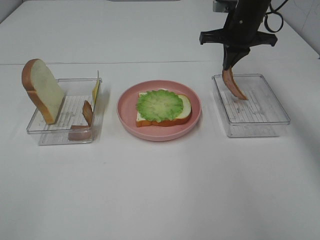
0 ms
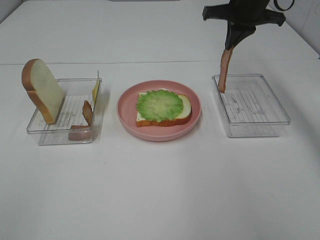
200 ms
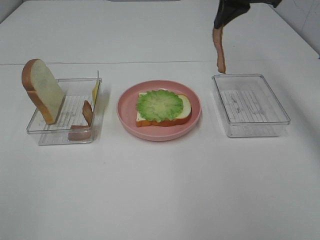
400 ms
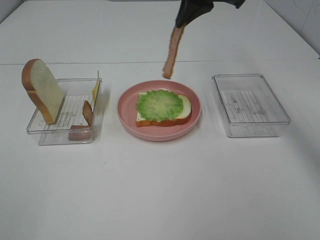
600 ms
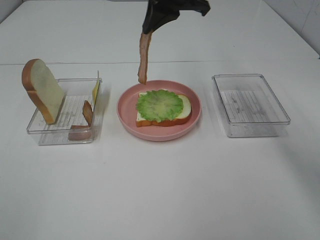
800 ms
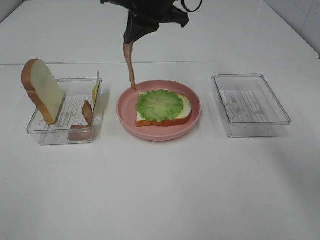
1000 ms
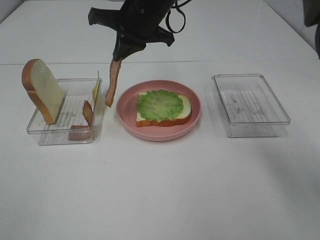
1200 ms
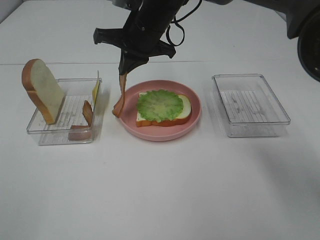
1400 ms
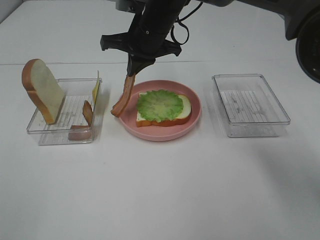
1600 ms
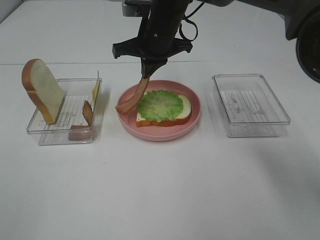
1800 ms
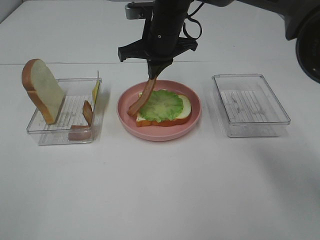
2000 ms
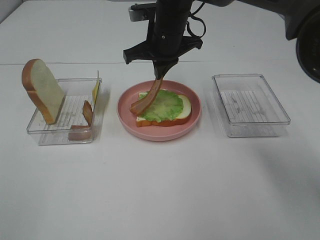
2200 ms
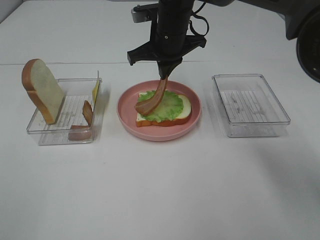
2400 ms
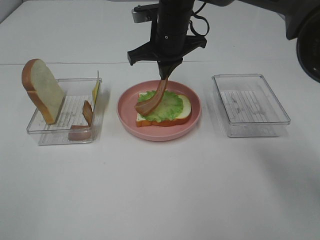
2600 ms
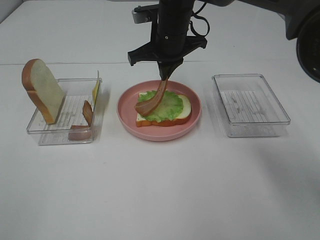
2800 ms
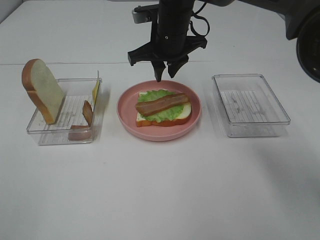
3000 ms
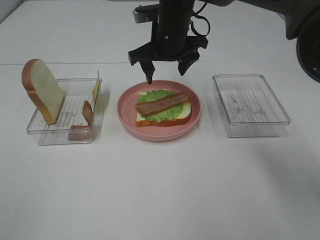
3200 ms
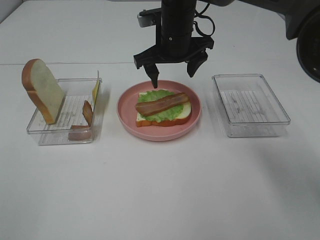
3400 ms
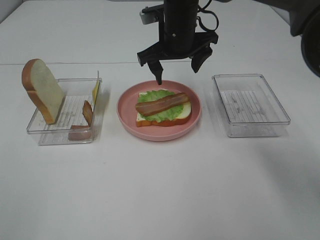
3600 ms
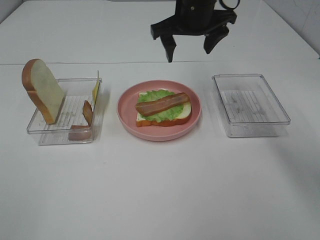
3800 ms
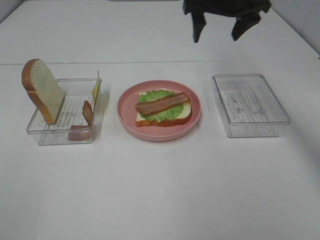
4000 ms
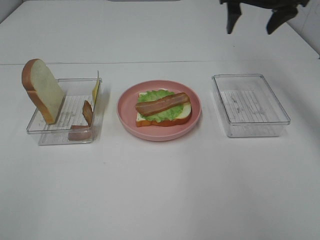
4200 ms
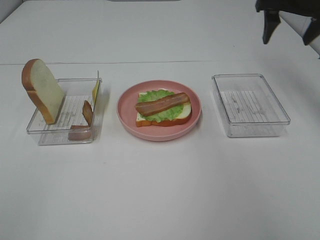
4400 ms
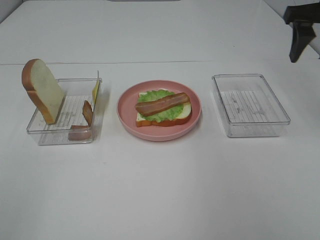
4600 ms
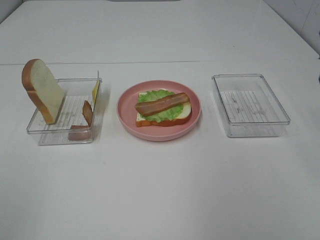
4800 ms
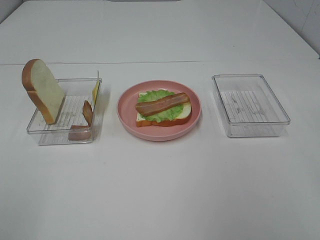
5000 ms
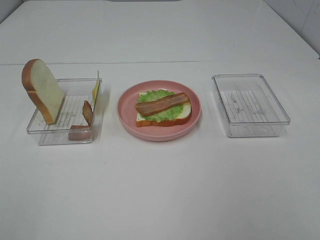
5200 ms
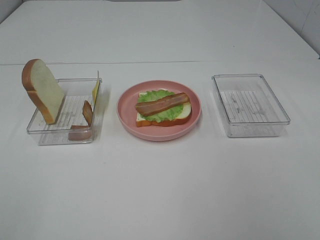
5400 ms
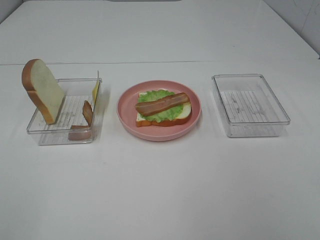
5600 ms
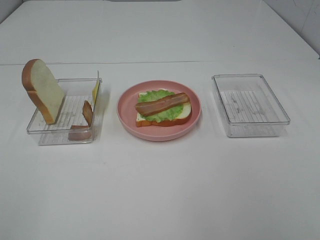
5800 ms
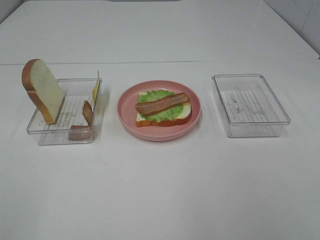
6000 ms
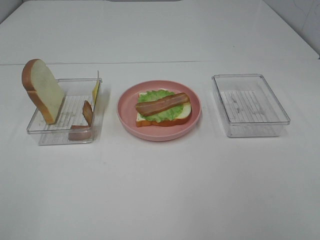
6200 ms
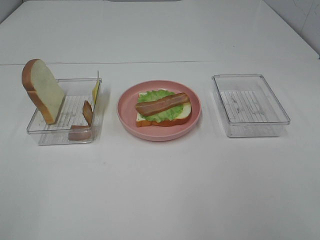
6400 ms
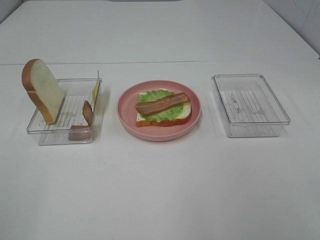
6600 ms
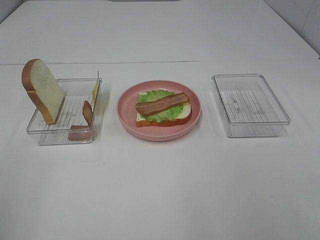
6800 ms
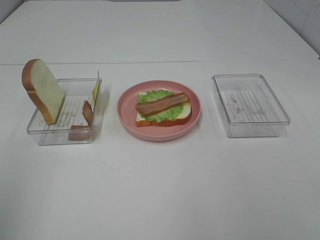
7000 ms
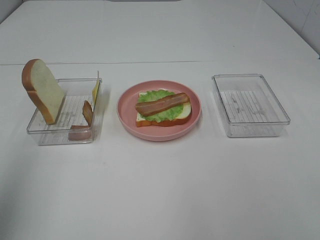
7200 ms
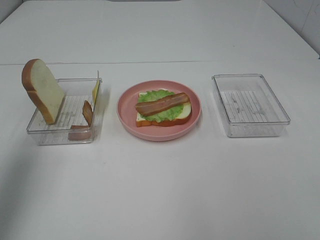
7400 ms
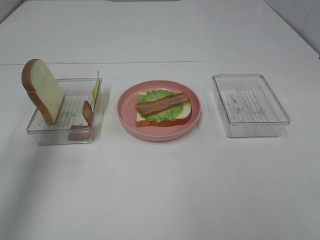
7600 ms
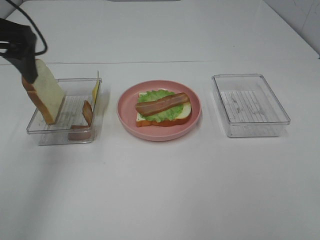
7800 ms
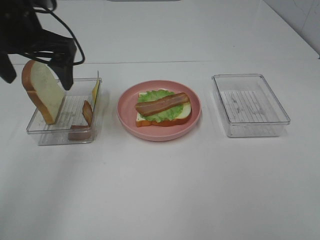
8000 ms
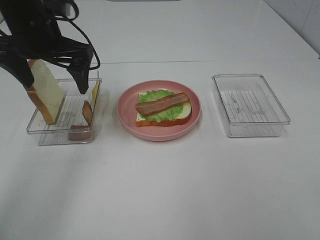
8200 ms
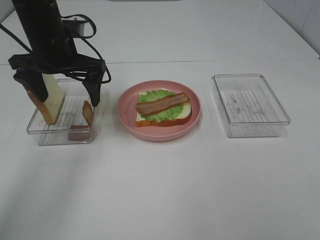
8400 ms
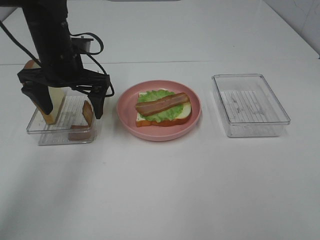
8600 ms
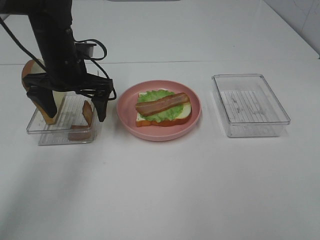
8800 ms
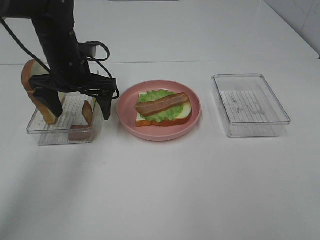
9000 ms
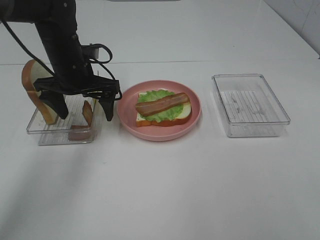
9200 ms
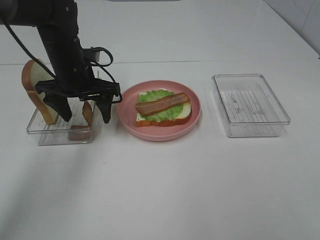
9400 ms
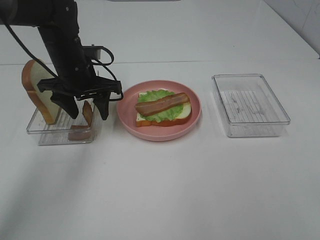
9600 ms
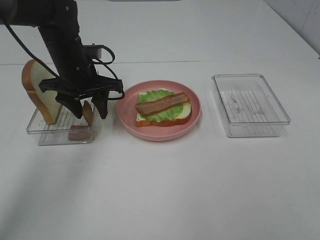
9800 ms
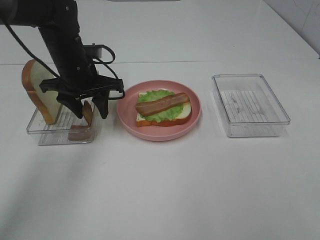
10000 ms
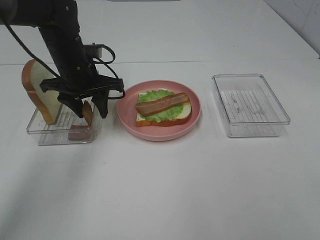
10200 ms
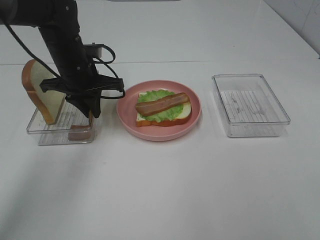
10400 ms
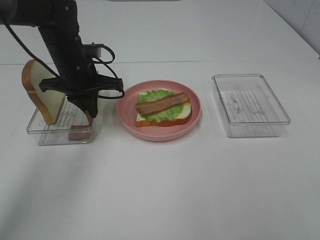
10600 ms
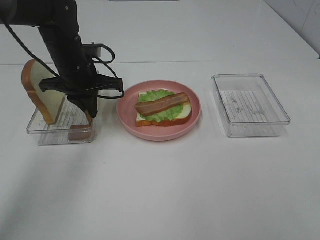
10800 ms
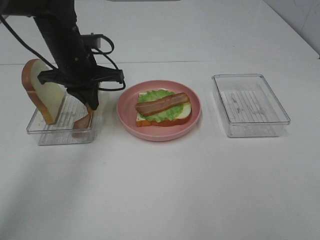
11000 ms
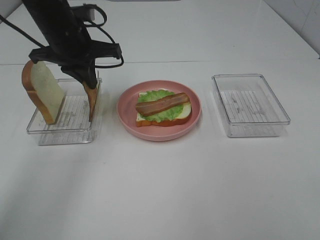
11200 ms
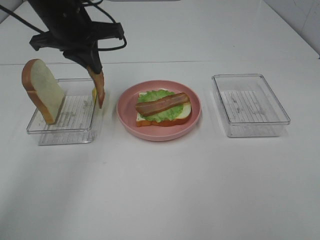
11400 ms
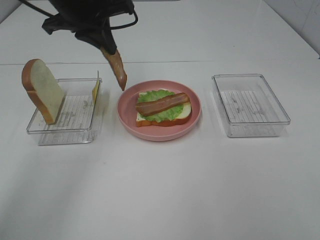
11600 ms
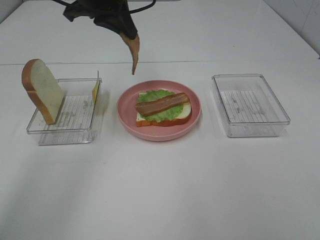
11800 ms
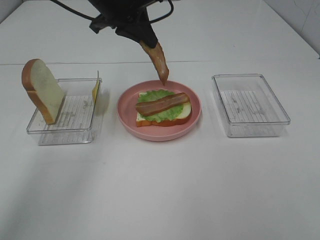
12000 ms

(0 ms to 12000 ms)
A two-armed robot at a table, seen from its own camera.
Task of the whole recording: Make sandwiches.
Step, 0 ms - 3000 ms: Right hand:place bacon on lettuce slice.
Step, 3200 ms - 10400 ms: Left hand:grab the bacon.
0 ms - 1600 ms: The right gripper travels to the left by approximately 20 cm.
1600 ms - 3000 ms: The right gripper opens its fingers.
3000 ms - 4400 ms: The right gripper goes some 25 cm to the right, and opens its fingers.
4400 ms - 6000 ms: The right gripper travels backward by roughly 40 cm.
6000 ms - 7600 ms: The left gripper goes about 30 cm forward.
7600 ms - 9000 ms: The left gripper is displaced downward, to the right and forward by some 25 cm.
9000 ms - 10400 ms: The left gripper closes.
10400 ms - 12000 ms: The left gripper heads upward and to the right, covering about 15 cm.

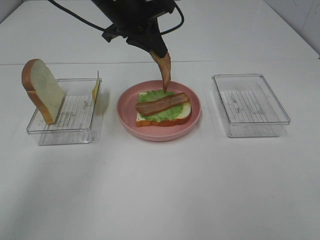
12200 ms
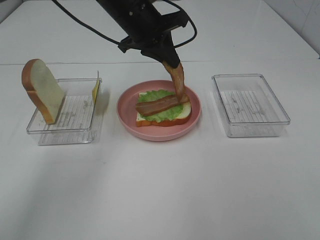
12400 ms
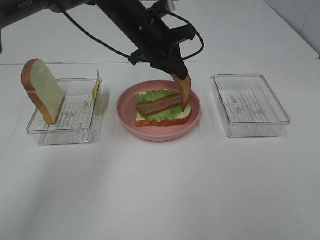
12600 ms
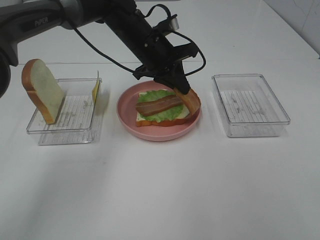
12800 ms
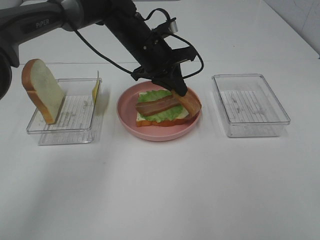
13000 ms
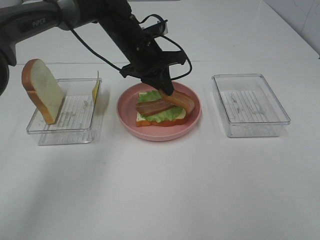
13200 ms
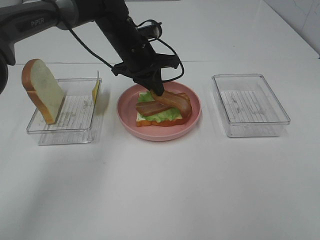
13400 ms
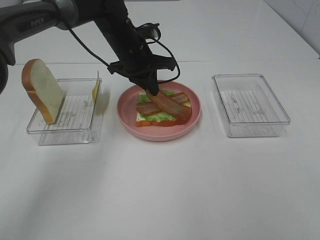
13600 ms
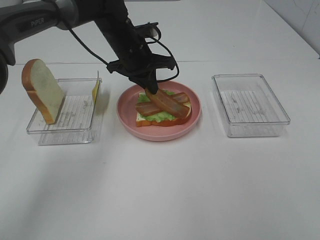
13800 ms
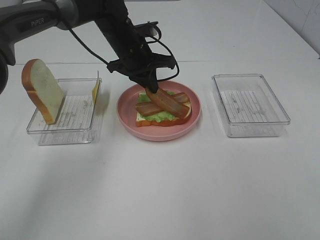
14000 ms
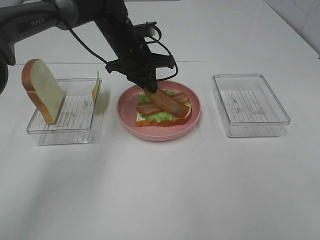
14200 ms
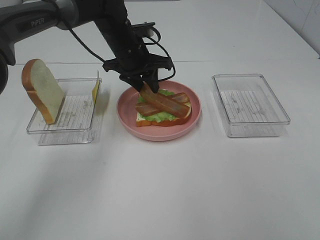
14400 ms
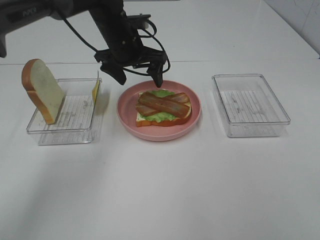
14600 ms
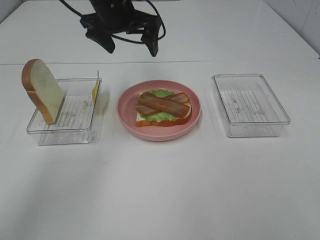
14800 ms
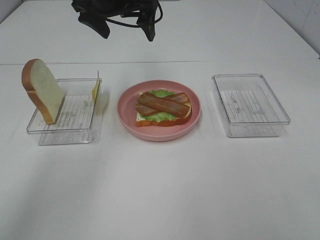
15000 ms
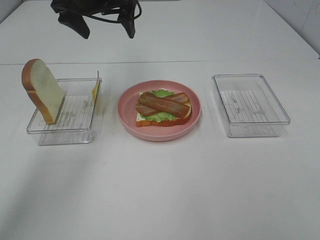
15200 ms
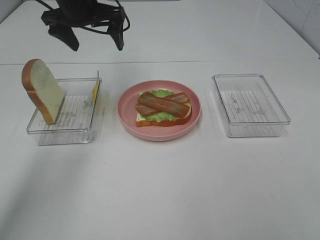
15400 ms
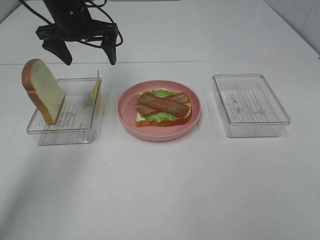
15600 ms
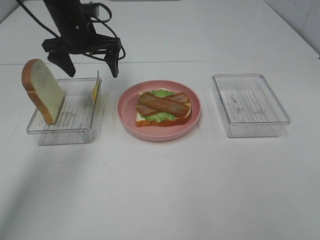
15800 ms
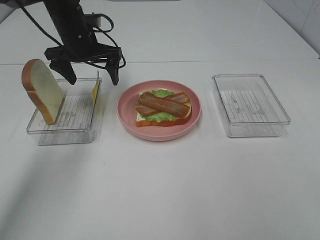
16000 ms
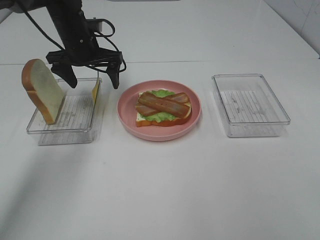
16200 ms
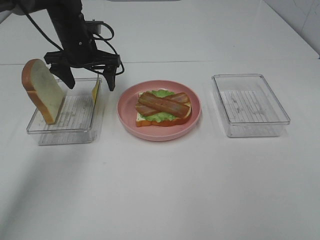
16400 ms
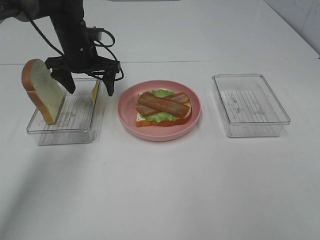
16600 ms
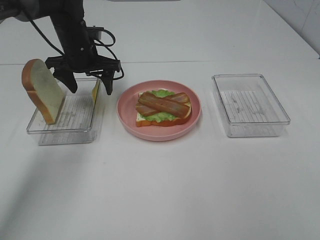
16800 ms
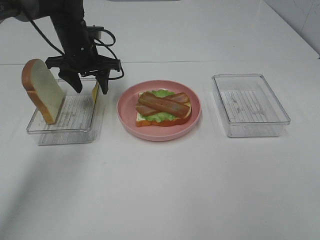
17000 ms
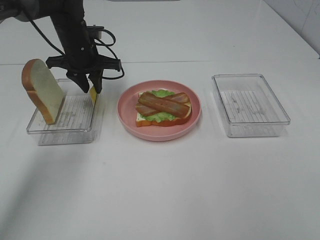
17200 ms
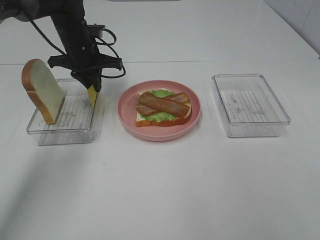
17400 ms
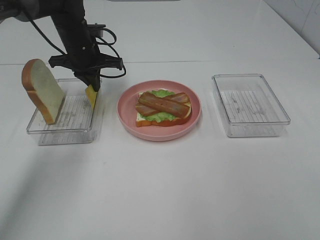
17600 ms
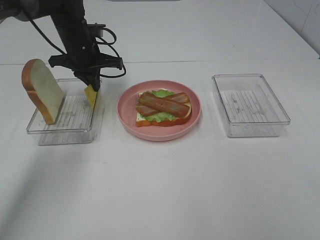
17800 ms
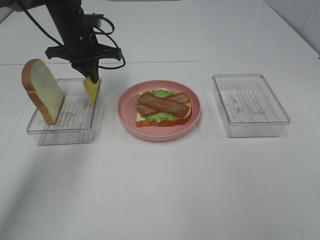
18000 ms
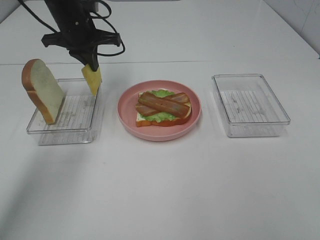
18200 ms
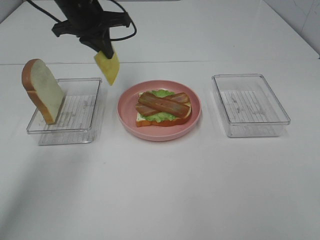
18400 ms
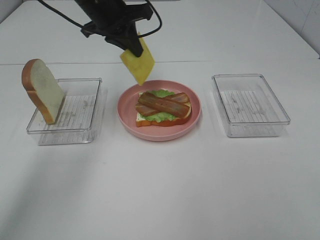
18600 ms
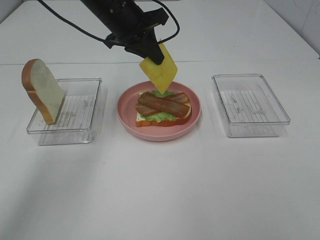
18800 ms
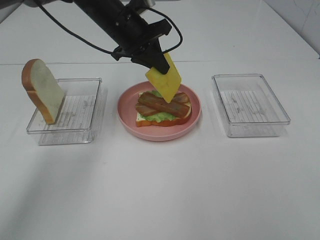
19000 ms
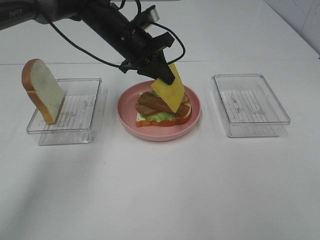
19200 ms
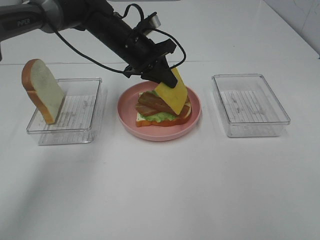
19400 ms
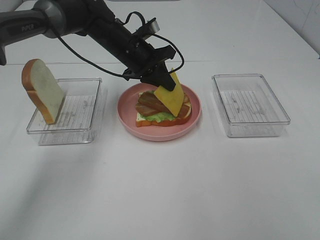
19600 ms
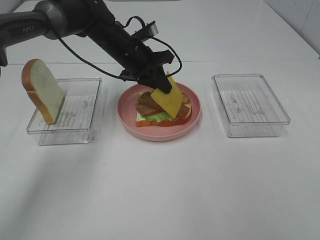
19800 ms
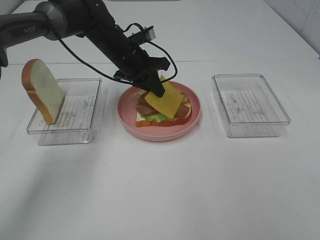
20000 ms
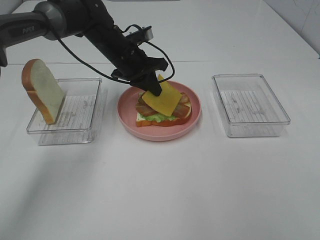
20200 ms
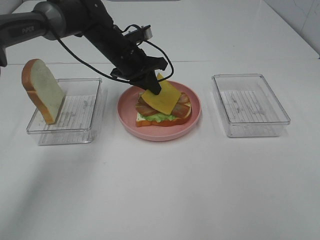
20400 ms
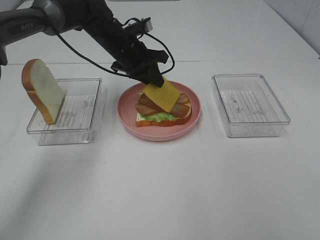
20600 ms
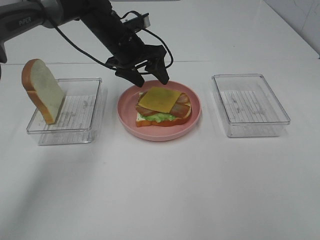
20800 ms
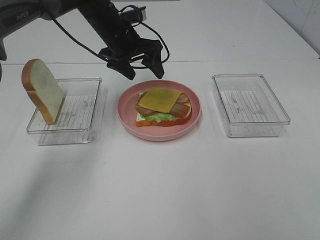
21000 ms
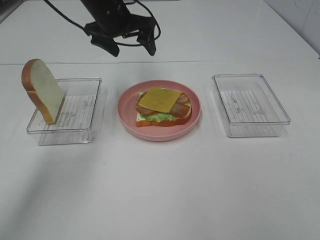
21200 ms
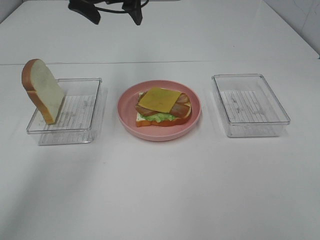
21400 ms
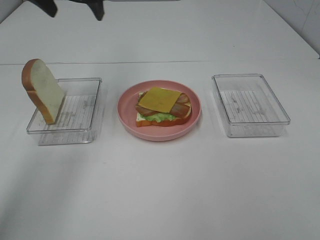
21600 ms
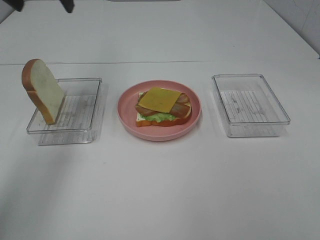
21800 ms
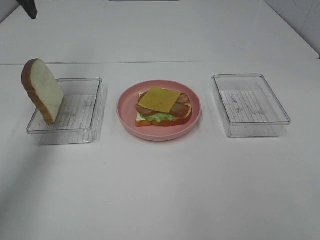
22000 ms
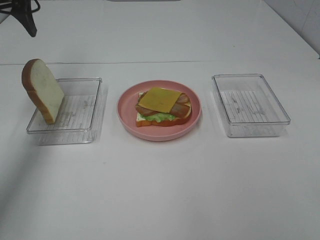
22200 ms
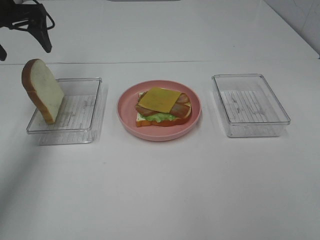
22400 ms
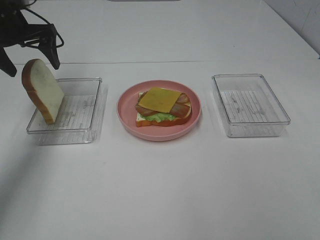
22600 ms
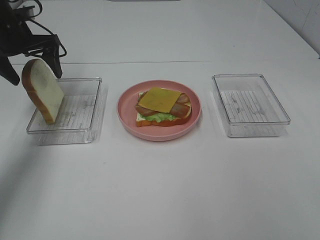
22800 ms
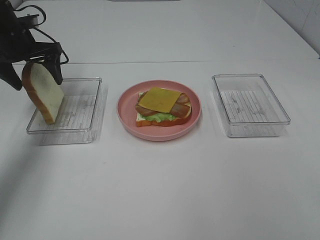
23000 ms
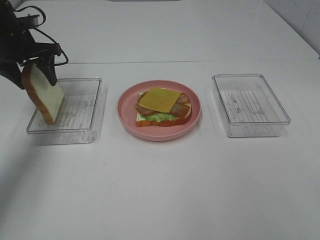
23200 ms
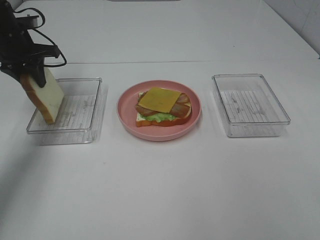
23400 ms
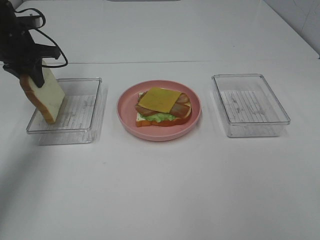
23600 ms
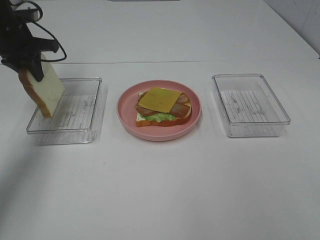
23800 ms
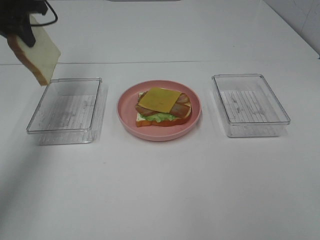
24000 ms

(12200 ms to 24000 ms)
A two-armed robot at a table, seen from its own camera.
Task of the whole recording: Make sandwiches.
Step, 12200 ms - 14600 ms: Left hand:place bacon on bacon.
Step, 14800 ms - 17800 ms: Left hand:grab the cheese slice.
Step, 18000 ms - 21000 ms: Left hand:place the cheese slice on top of the bacon.
Step, 21200 ms - 23600 ms: Left hand:grab the bread slice.
12200 ms - 13600 ms: The left gripper travels downward by roughly 10 cm.
13600 ms - 15200 ms: The left gripper moves upward and to the left, approximately 15 cm, and opens its fingers.
15200 ms - 16600 ms: The left gripper shifts approximately 15 cm downward.
16600 ms - 18200 ms: The left gripper moves upward, some 5 cm, and closes its fingers.
18200 ms - 19600 ms: The left gripper travels to the right and downward by roughly 10 cm.
19600 ms - 21000 ms: The left gripper opens.
21000 ms - 22600 ms: The left gripper shifts about 20 cm to the left.
22600 ms - 24000 ms: The left gripper heads upward, covering about 5 cm, and closes its fingers.
